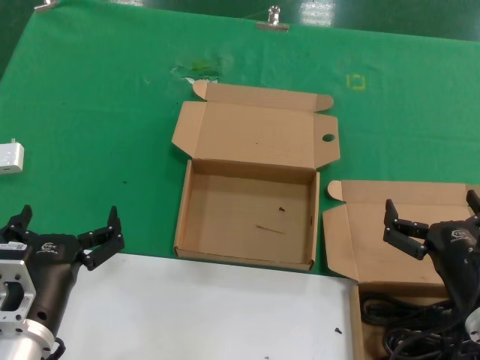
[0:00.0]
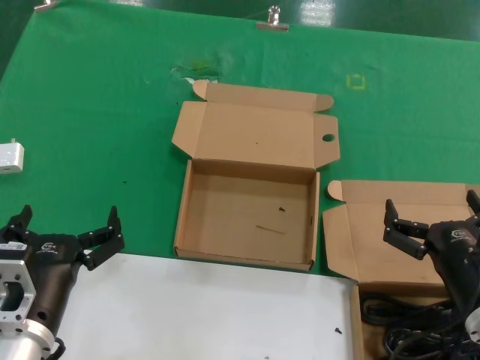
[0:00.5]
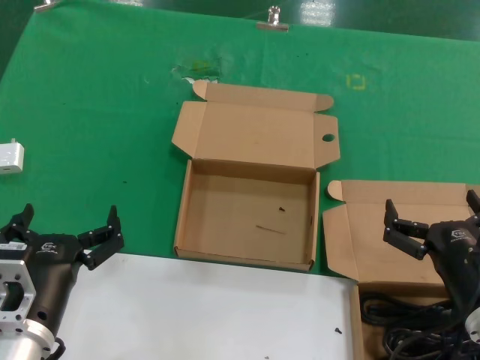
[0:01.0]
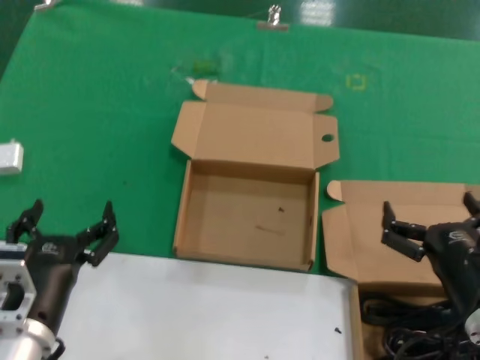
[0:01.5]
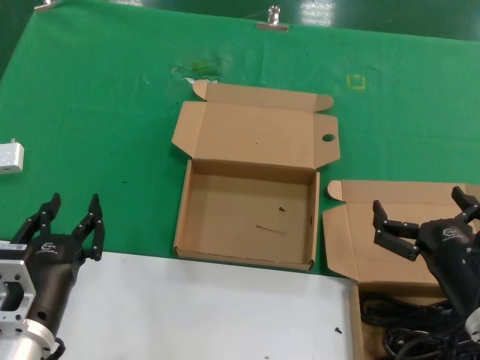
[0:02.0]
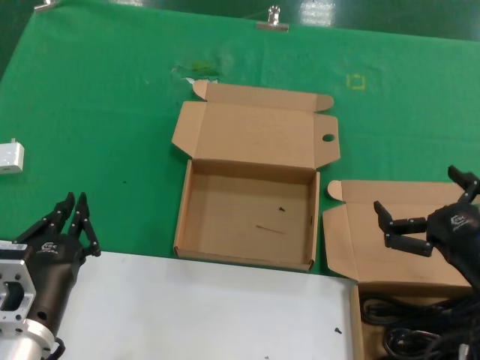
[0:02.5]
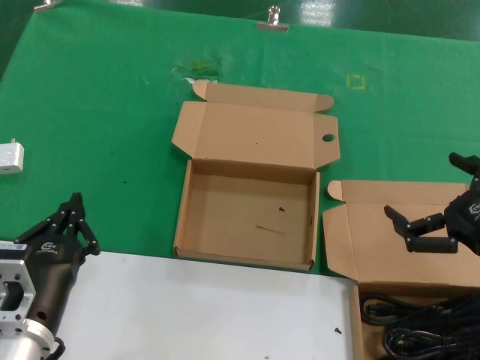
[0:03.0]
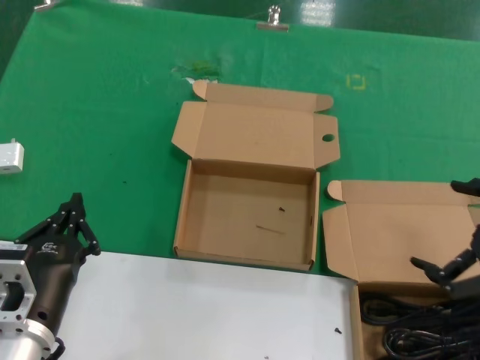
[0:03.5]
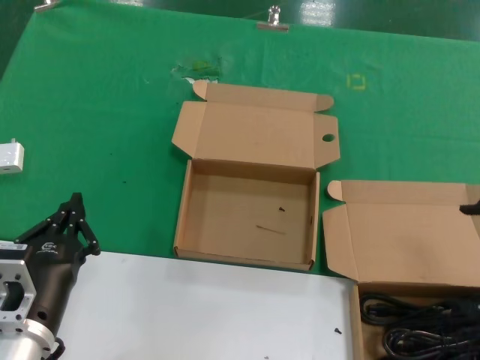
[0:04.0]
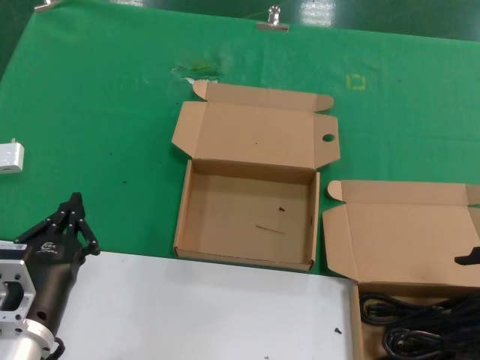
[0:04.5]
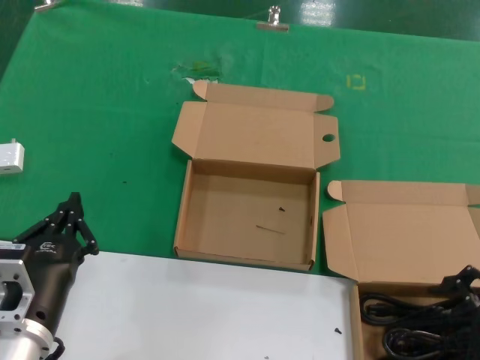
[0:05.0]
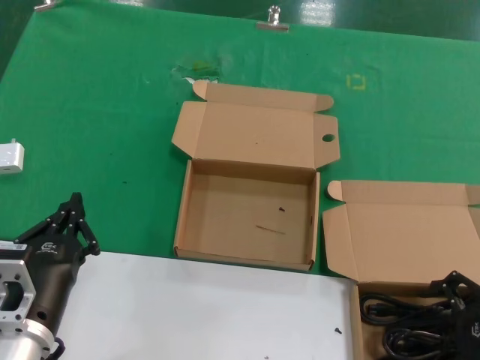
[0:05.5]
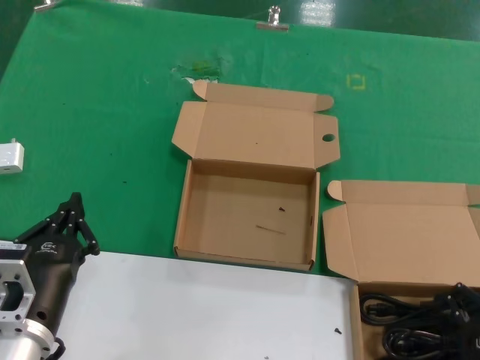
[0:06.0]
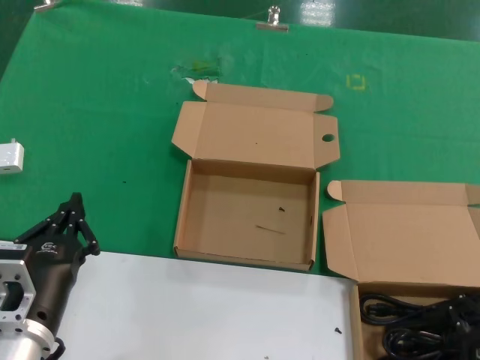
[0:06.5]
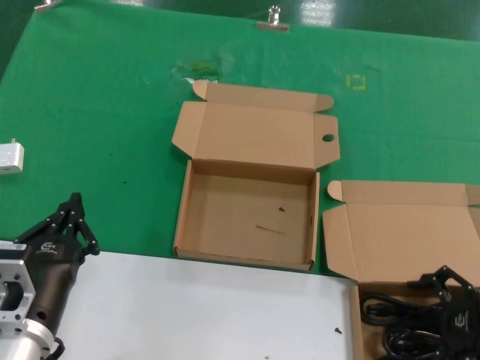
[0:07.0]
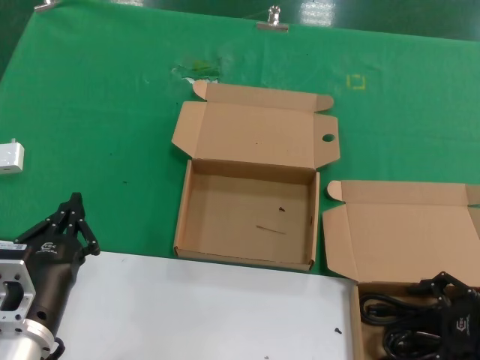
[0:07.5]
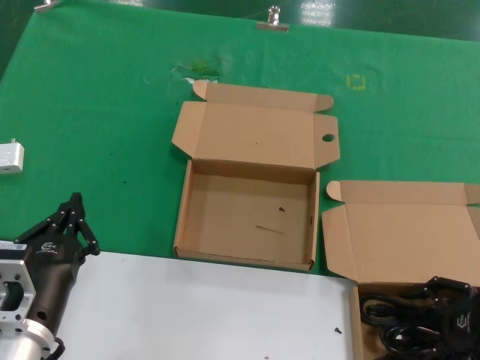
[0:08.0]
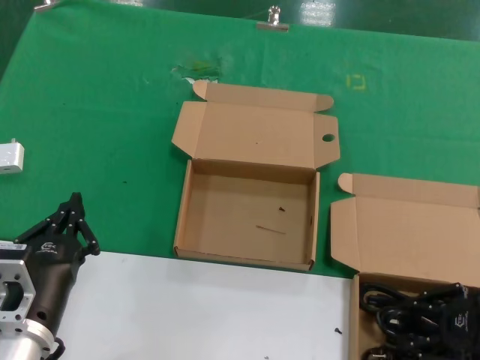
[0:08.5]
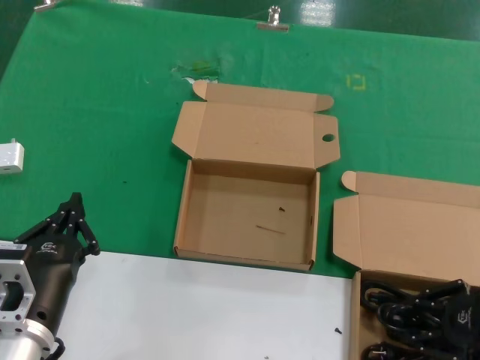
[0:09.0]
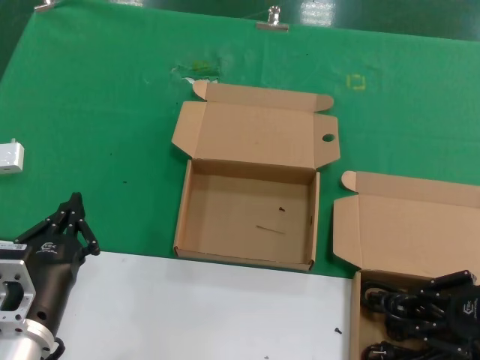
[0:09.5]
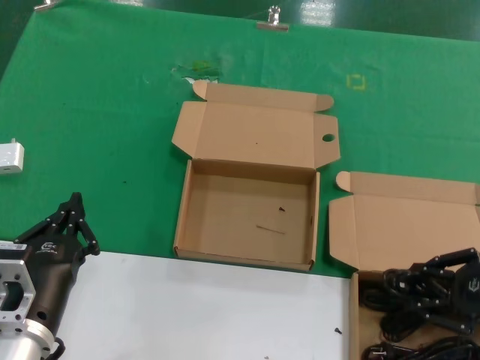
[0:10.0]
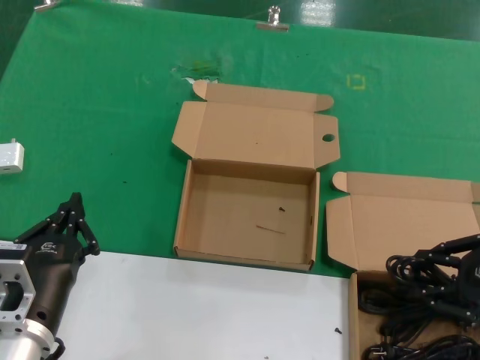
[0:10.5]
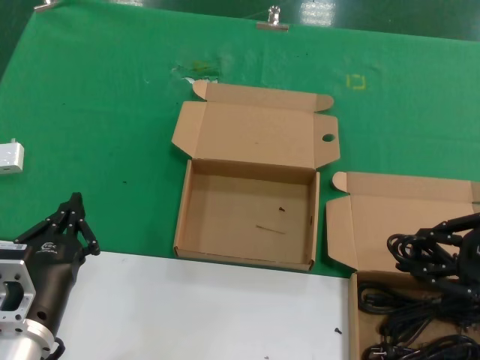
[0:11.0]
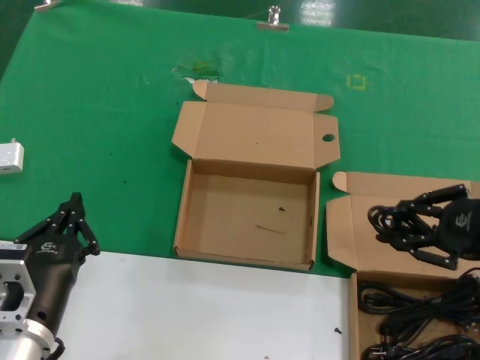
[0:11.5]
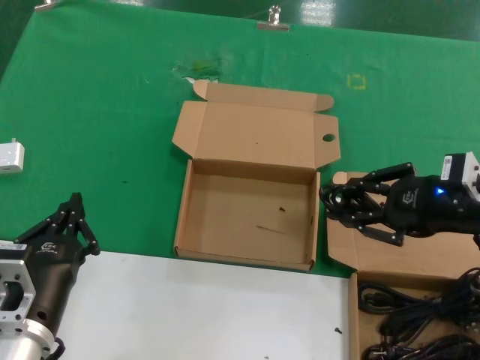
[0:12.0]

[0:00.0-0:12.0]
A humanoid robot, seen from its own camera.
Task of the whole recording: take the parts from the box containing them and put them into an empty box.
Step, 0:00.0 to 0:08.5: Grasp the data cable.
0:00.0 to 0:02.0: Both hands stay about where they are.
0:02.0 to 0:04.0: The right hand moves upward and to the right, roughly 20 cm.
0:06.0 to 0:10.0: The hands stay close to where they were, moving slightly.
0:10.0 to 0:12.0: The right hand moves forward, to the left and upward, some 10 cm.

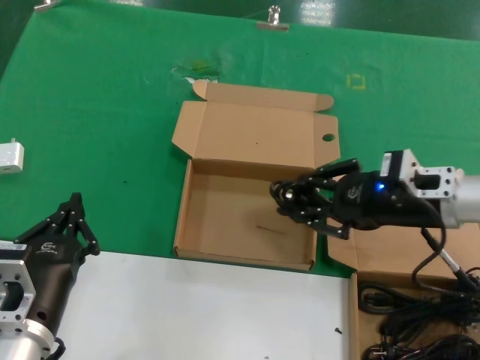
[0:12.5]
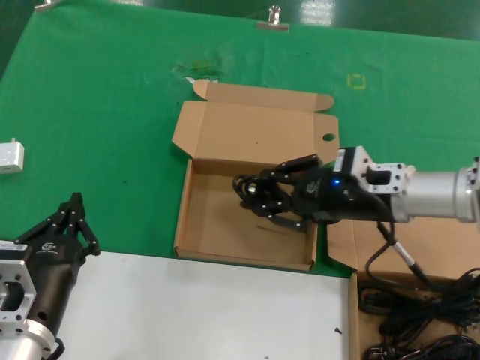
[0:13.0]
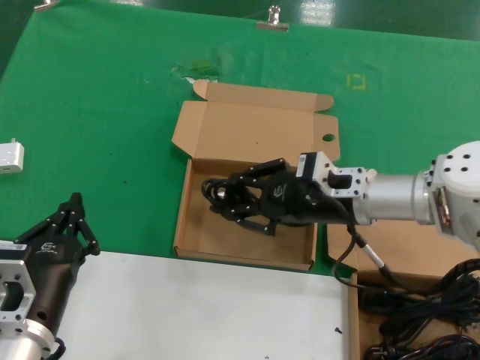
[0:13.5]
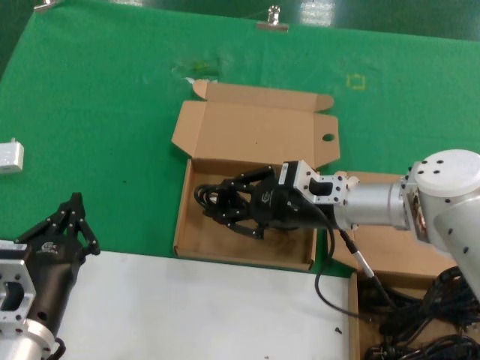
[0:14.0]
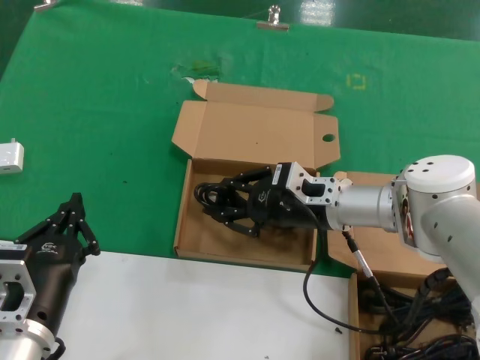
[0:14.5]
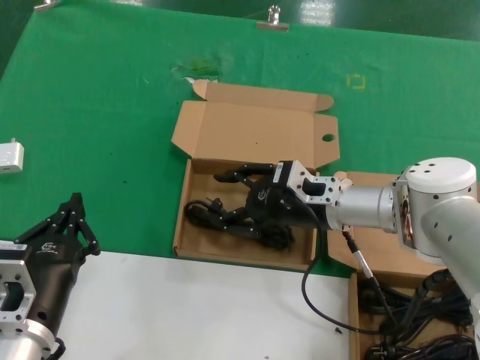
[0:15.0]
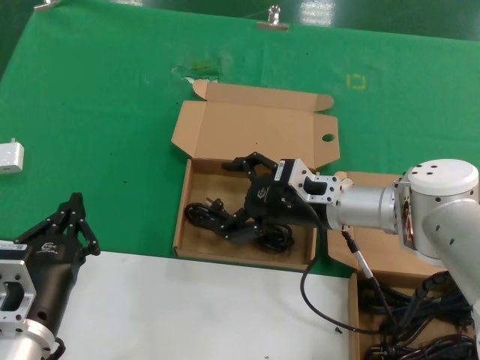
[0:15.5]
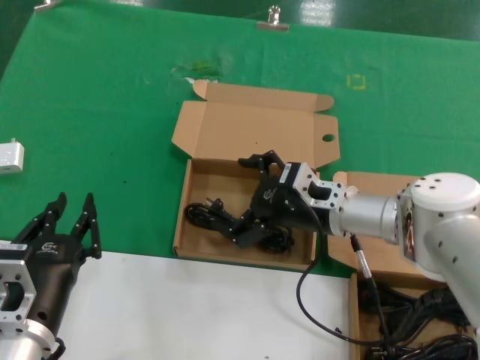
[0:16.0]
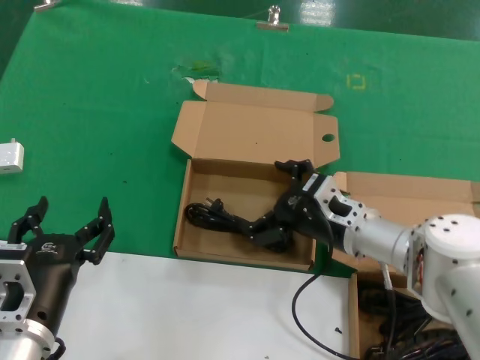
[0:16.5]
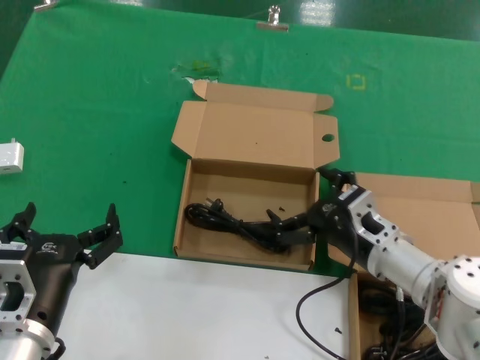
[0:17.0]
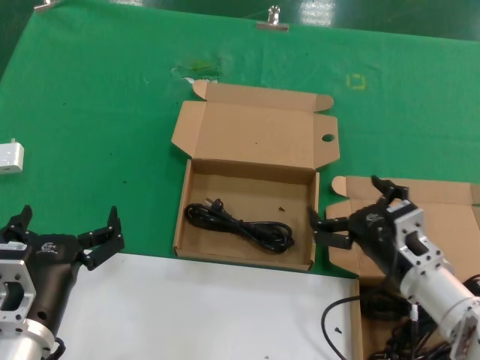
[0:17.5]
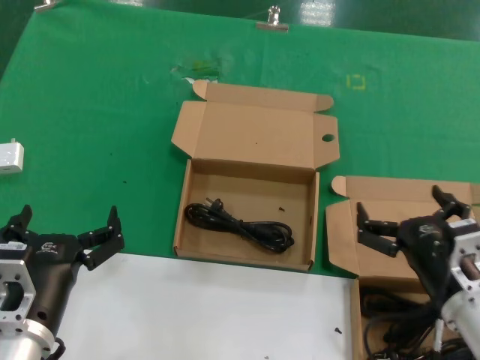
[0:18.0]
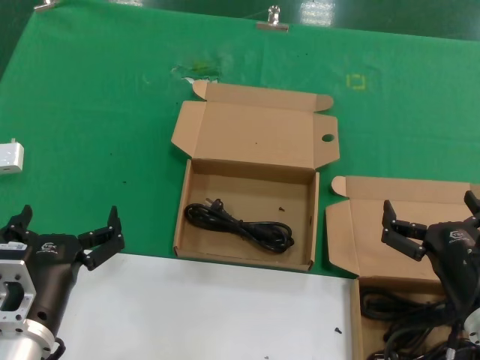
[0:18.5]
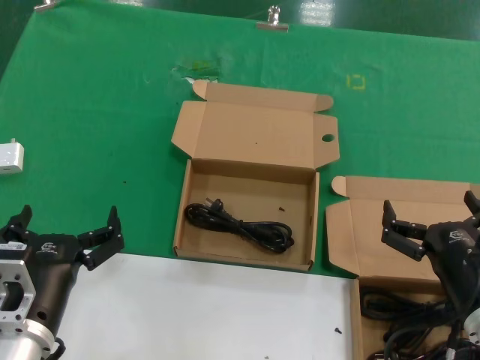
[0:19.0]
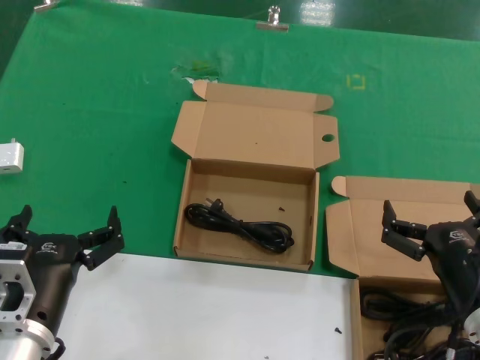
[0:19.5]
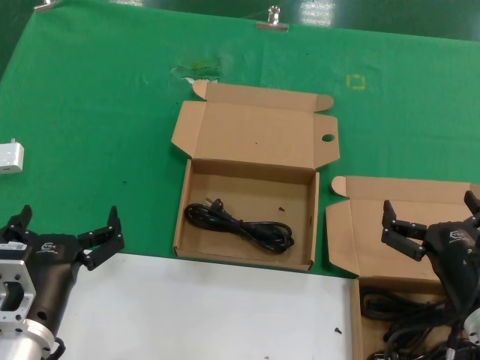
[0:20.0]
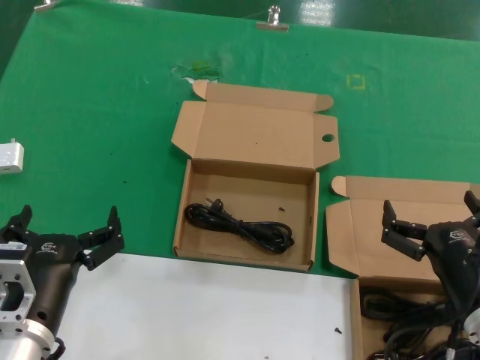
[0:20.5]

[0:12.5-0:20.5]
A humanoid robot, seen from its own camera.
Task of the whole recording: take the parts from the box containing them and put them into an empty box.
Step, 0:12.5 to 0:15.0: Place the data cable in the another box.
0:12.5 to 0:14.5: The right hand goes approximately 15 cm to the left, downward and forward.
0:14.5 to 0:16.5: The right hand moves approximately 5 cm.
0:16.5 to 0:18.5: The right hand is displaced backward and to the right by some 20 cm.
0:18.5 to 0:20.5: The two hands keep their place.

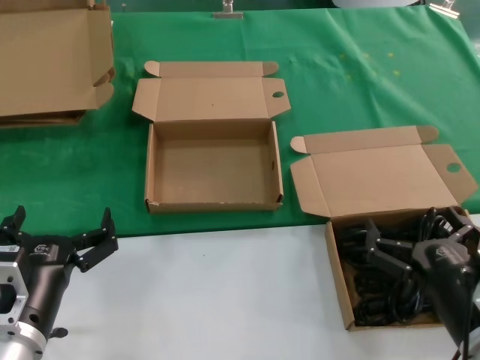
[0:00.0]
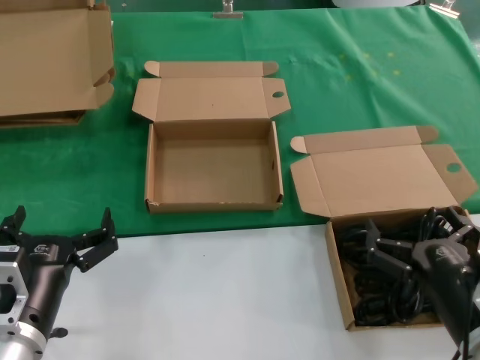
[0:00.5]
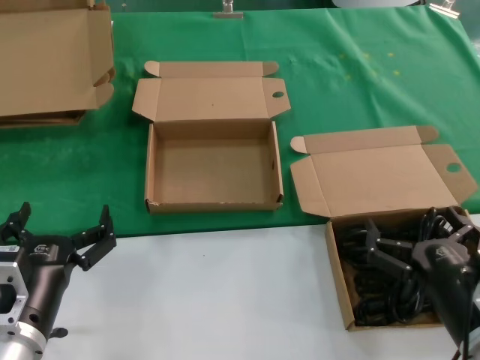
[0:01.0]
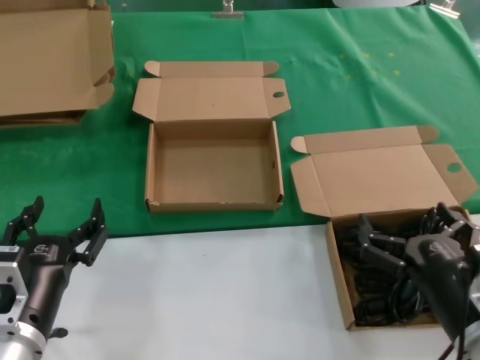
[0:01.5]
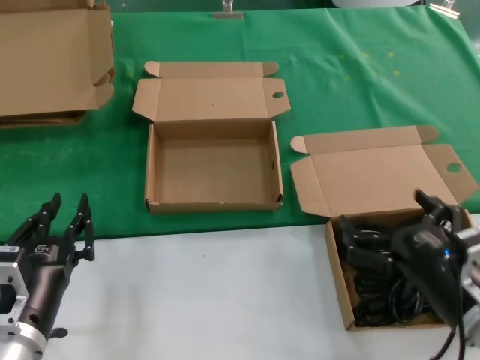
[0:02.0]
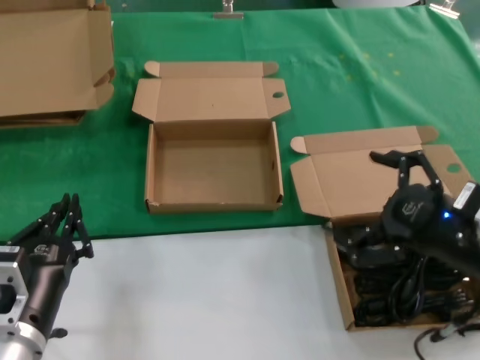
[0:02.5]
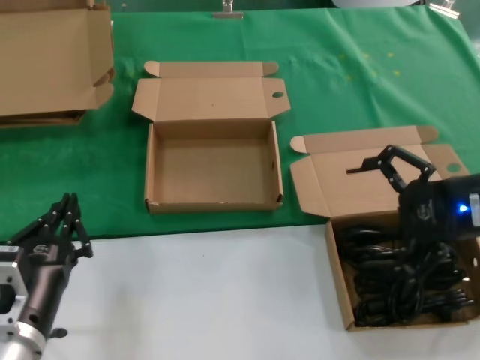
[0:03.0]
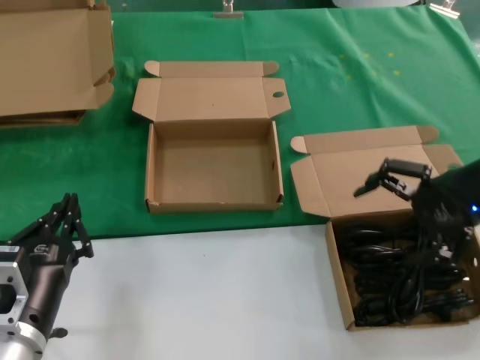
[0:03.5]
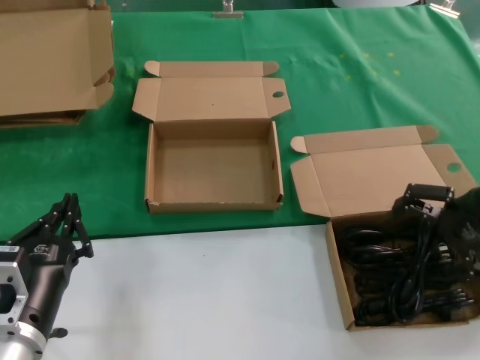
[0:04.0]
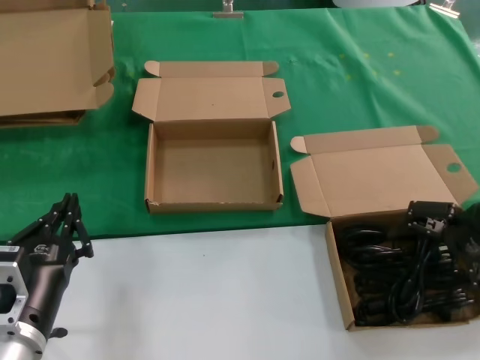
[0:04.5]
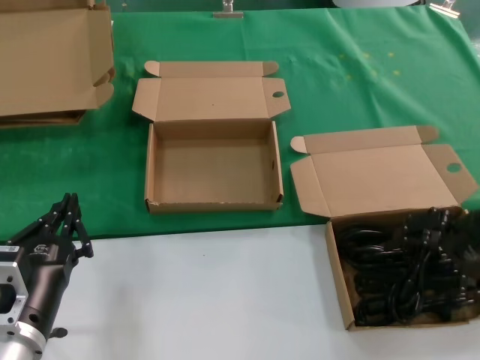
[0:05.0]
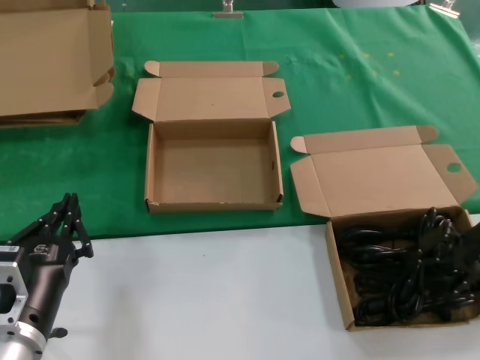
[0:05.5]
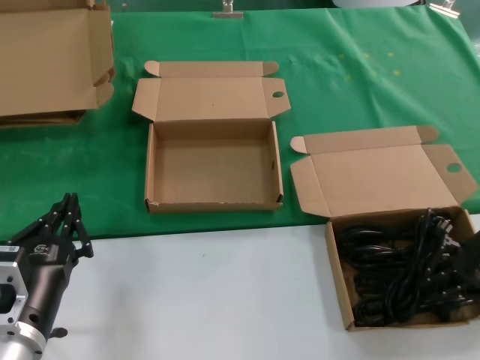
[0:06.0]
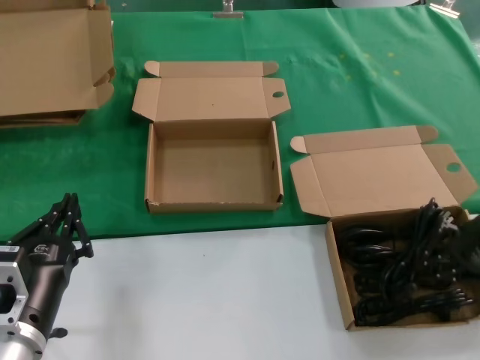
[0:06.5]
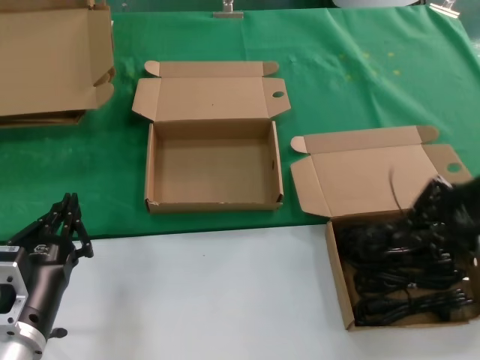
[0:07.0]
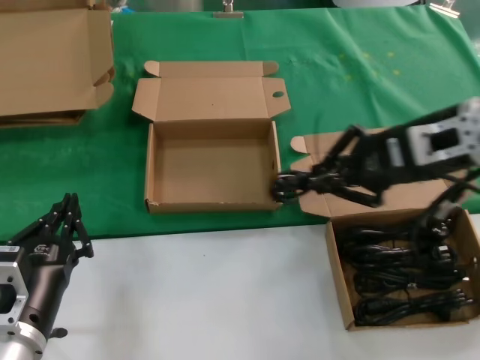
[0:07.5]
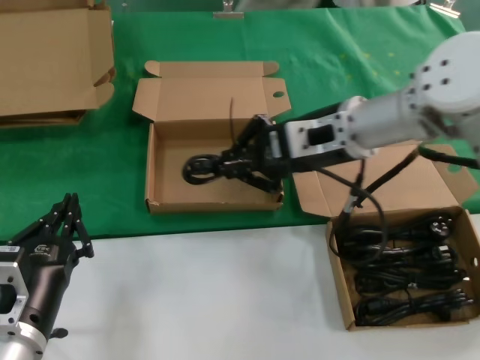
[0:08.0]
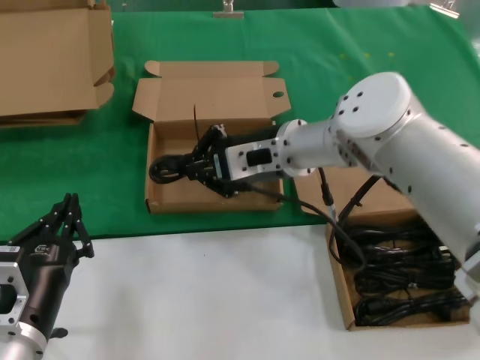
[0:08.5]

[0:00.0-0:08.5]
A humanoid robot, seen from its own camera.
Task of the whole recording: take the parts from the box containing them and put them into an empty box.
Step, 0:00.0 to 0:06.0: Grasp the data cable.
0:00.0 to 0:02.0: The hands stay close to where they were, moving slightly.
0:02.0 to 0:04.0: The right hand goes roughly 25 cm upward, forward and to the right.
0:04.0 to 0:06.5: The hands move only a little.
0:06.5 to 0:08.5: The right hand shifts roughly 30 cm to the left.
